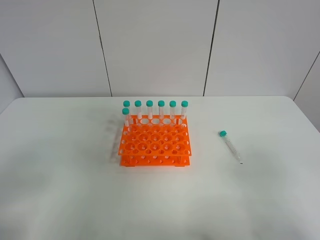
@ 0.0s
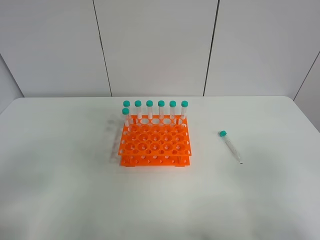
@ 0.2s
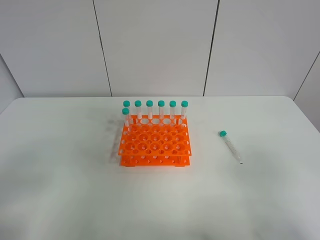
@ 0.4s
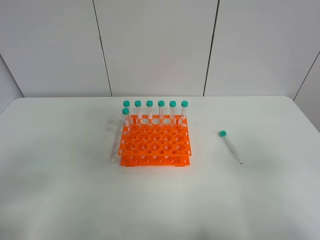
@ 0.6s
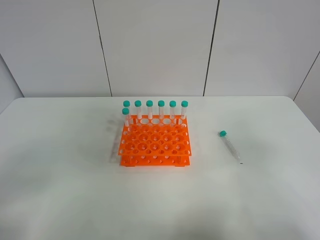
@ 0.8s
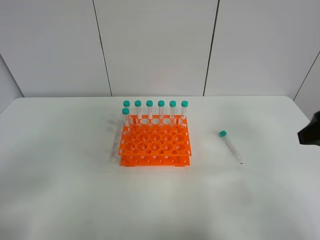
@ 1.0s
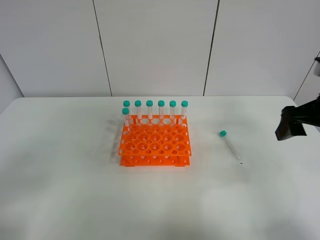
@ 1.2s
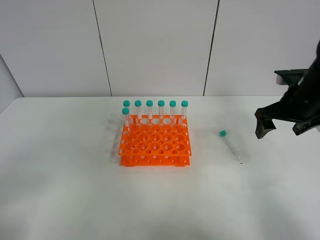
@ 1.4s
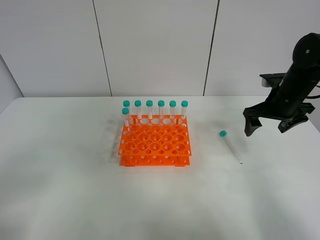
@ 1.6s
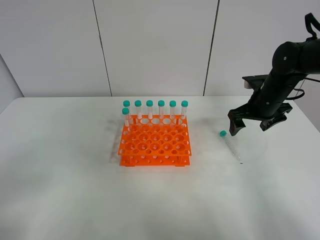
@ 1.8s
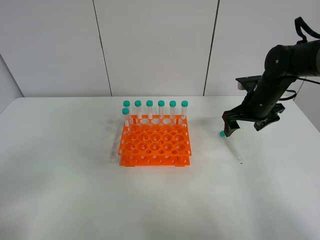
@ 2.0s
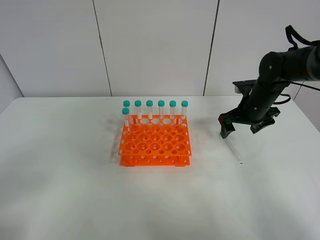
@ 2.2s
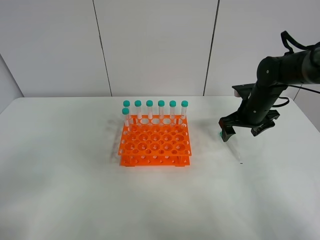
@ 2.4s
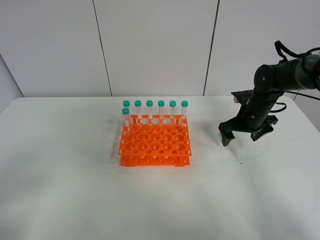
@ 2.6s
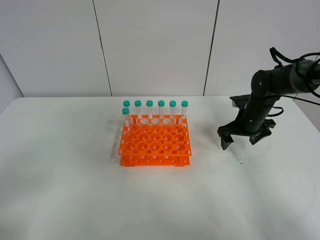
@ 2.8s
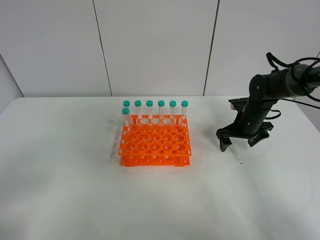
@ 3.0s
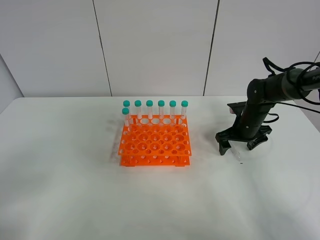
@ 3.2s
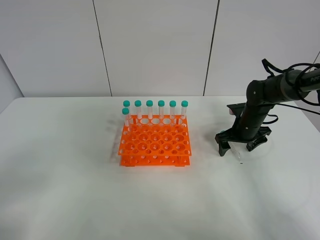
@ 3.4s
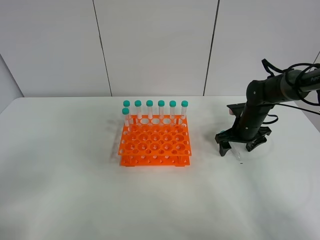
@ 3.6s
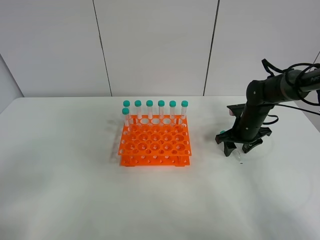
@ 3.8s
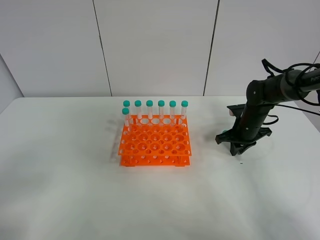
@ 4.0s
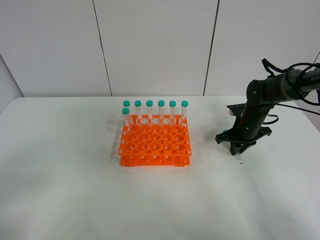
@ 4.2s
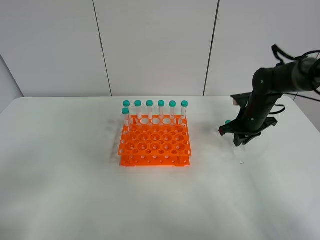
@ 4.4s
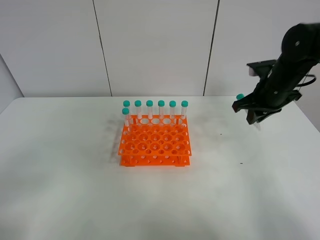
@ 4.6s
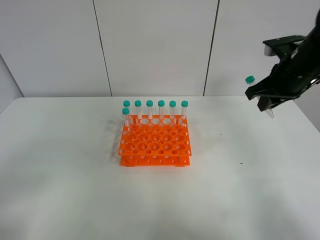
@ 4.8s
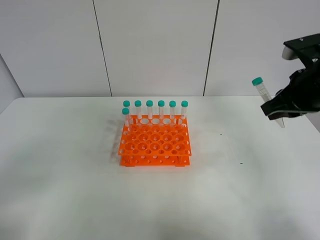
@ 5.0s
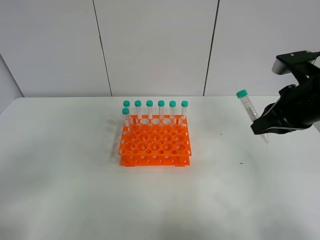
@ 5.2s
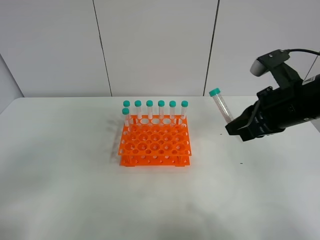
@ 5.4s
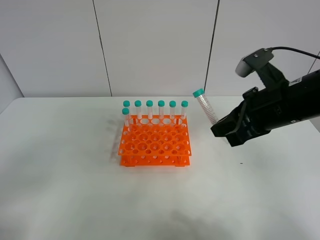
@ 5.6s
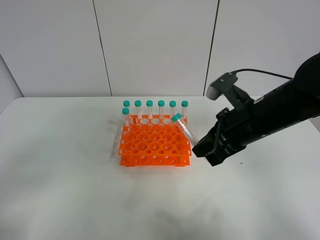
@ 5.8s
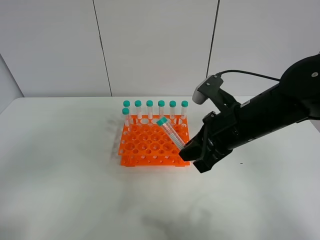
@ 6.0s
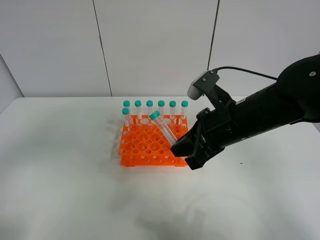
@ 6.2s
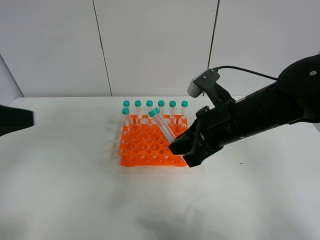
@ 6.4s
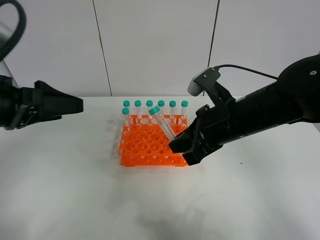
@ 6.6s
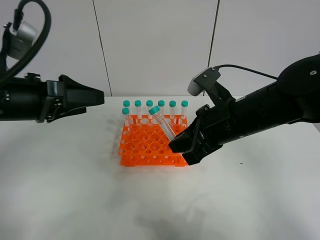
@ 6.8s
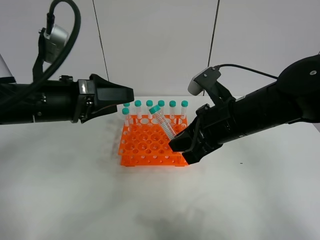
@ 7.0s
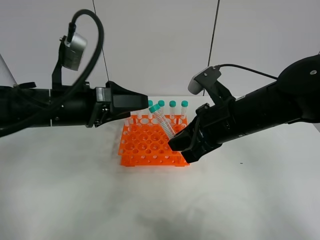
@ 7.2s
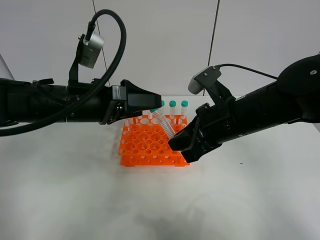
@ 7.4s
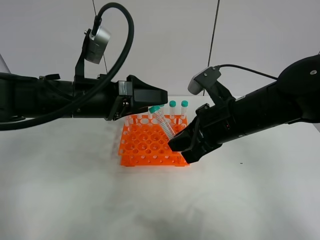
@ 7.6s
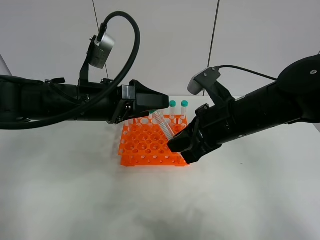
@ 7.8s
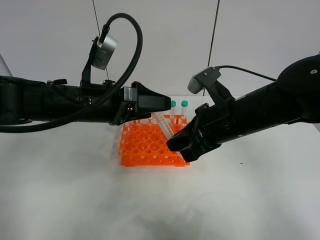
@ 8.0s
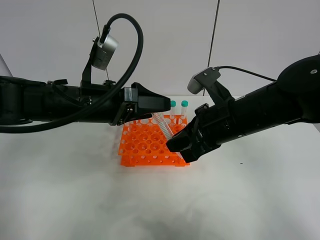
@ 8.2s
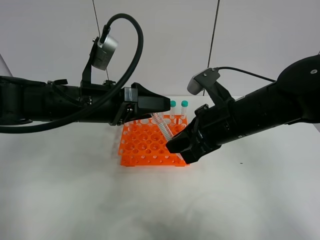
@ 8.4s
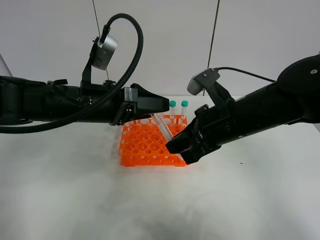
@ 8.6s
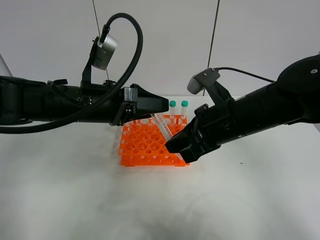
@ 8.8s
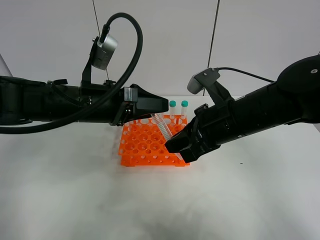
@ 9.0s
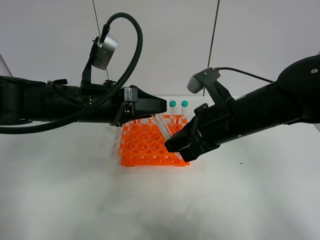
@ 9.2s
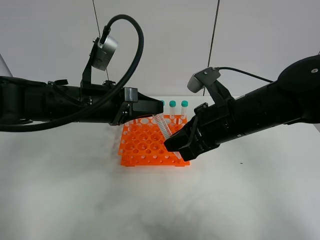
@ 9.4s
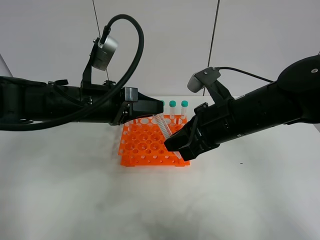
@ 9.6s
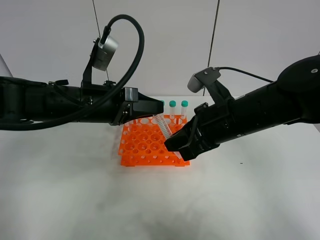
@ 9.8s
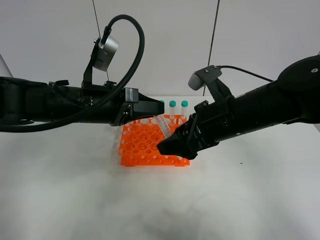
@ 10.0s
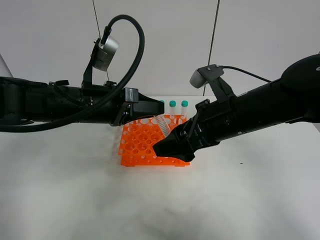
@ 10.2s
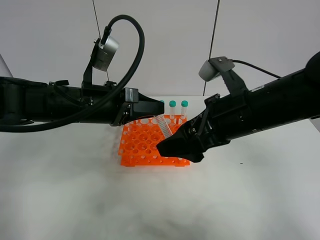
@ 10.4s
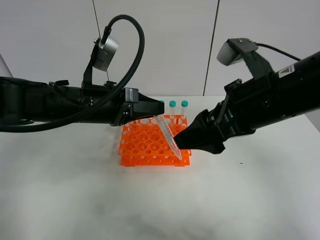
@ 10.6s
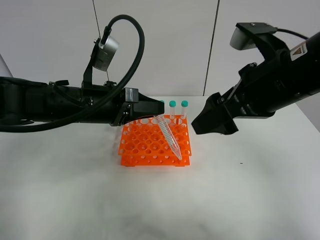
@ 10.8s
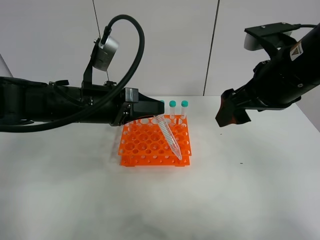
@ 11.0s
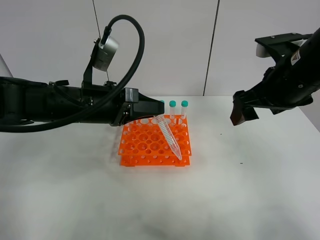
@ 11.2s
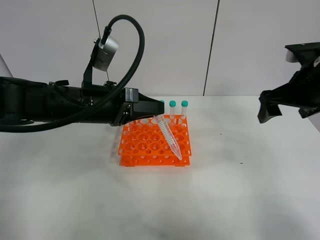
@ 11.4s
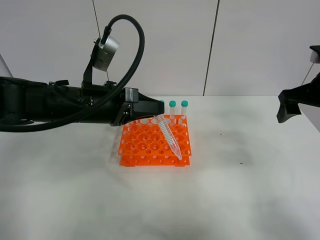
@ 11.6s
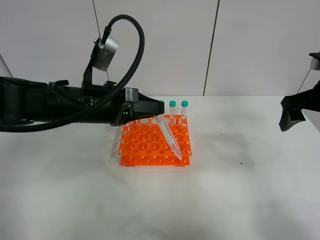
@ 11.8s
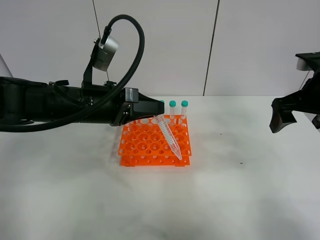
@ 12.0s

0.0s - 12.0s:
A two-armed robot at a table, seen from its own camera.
Task of the whole recording: Put the test tube on the table back onto the test tube rack.
Step, 0.0s - 4.6s: Pick up the test tube with the right gripper.
Step, 4.8s - 10.6s: Move the test tube from the right gripper to the left gripper.
0.0s - 1.6s: The right gripper shifts some 35 cm forward.
1.6s - 3.0s: The right gripper goes some 10 cm downward.
3.0s - 4.4s: The right gripper closes.
4.4s - 6.0s: The right gripper heads backward, to the left and upward, covering approximately 20 cm.
6.0s - 7.6s: The left gripper goes some 30 cm forward and to the right.
7.6s - 9.0s: The left gripper closes its fingers.
9.0s - 10.4s: The left gripper closes its fingers, while the right gripper opens up.
10.4s - 12.0s: The right gripper goes roughly 15 cm to the right and forward.

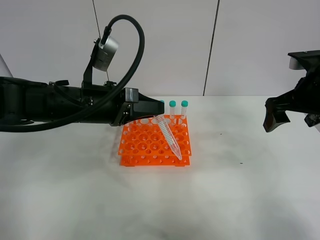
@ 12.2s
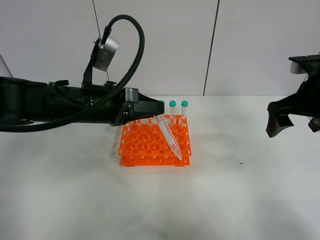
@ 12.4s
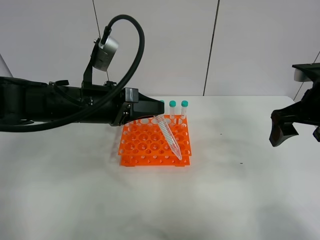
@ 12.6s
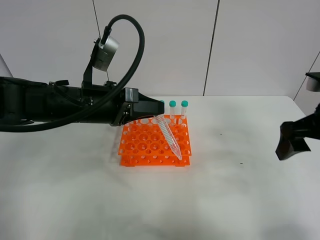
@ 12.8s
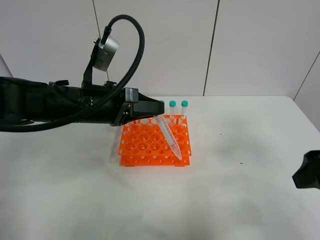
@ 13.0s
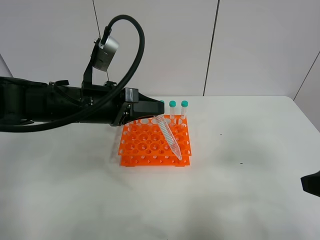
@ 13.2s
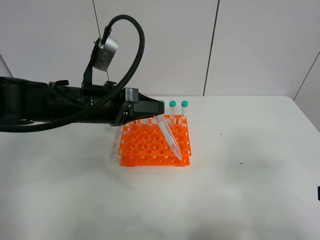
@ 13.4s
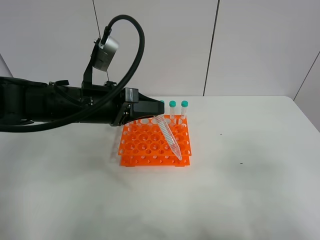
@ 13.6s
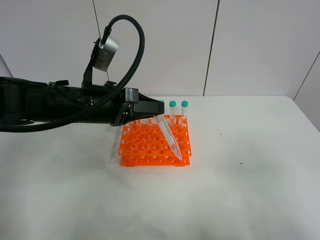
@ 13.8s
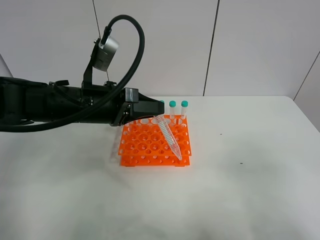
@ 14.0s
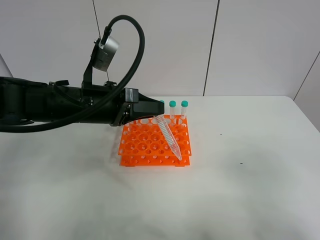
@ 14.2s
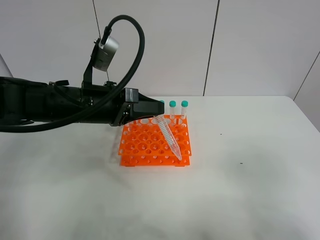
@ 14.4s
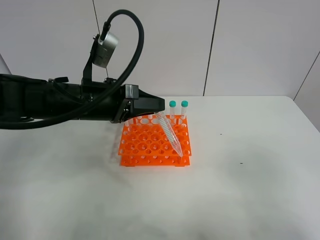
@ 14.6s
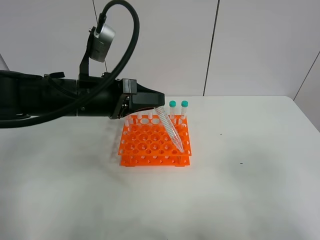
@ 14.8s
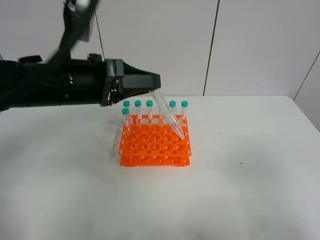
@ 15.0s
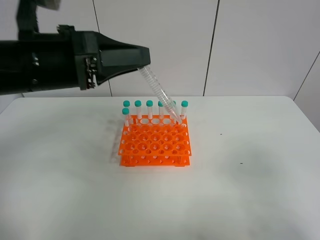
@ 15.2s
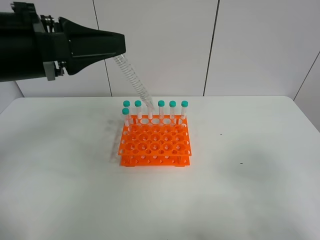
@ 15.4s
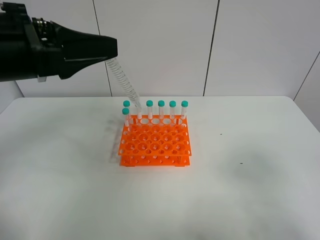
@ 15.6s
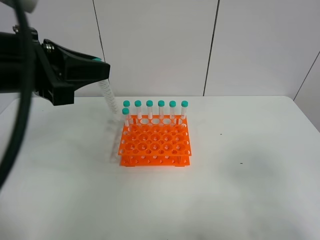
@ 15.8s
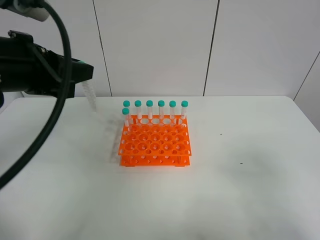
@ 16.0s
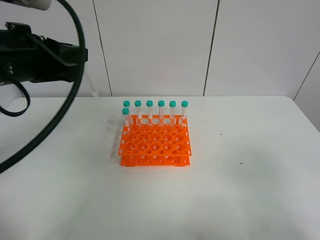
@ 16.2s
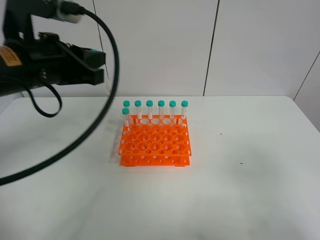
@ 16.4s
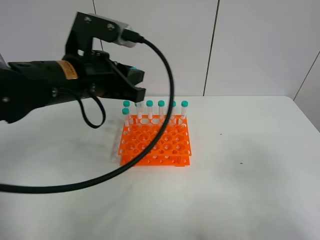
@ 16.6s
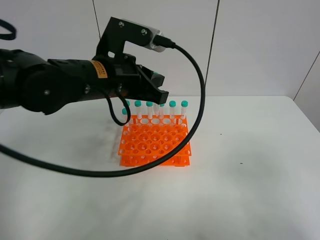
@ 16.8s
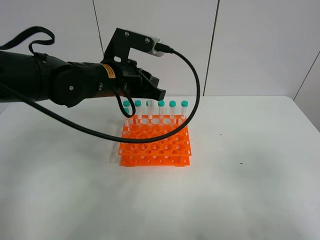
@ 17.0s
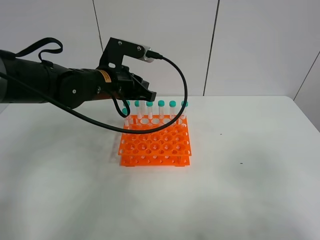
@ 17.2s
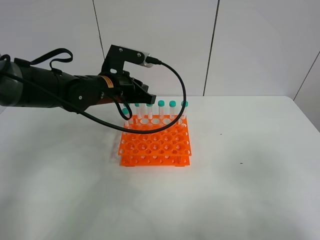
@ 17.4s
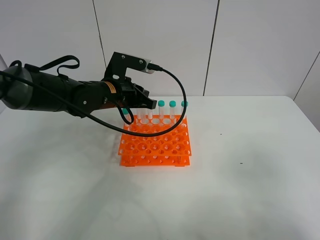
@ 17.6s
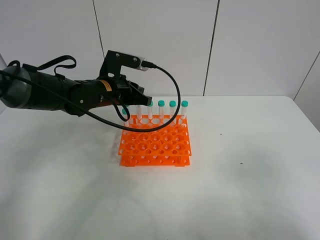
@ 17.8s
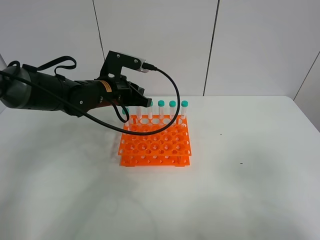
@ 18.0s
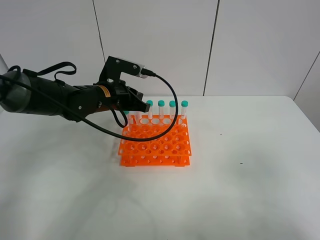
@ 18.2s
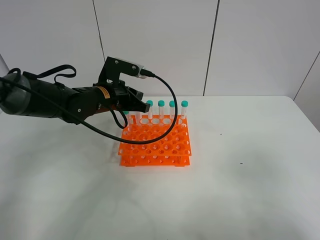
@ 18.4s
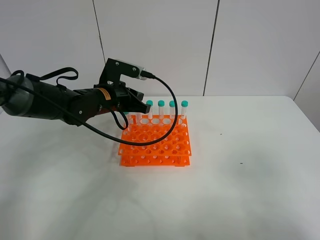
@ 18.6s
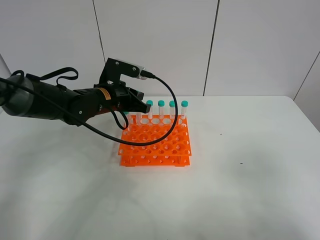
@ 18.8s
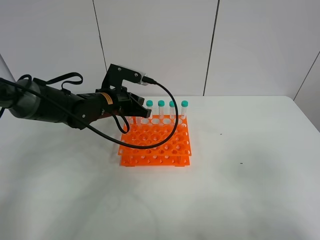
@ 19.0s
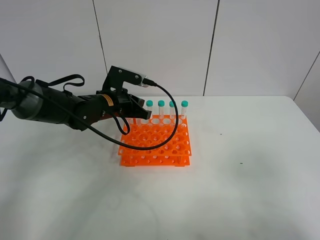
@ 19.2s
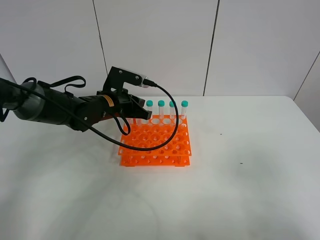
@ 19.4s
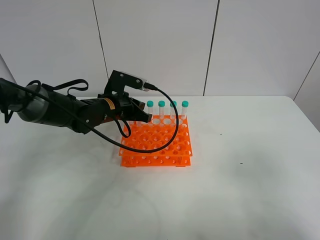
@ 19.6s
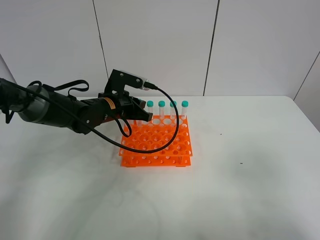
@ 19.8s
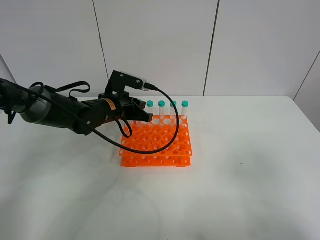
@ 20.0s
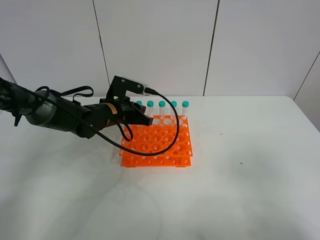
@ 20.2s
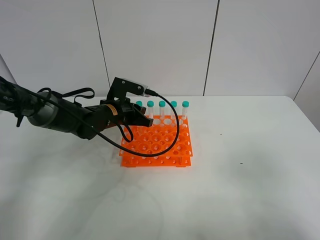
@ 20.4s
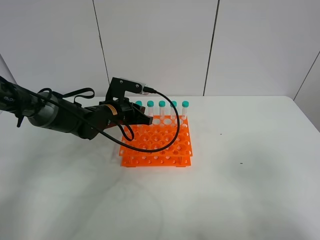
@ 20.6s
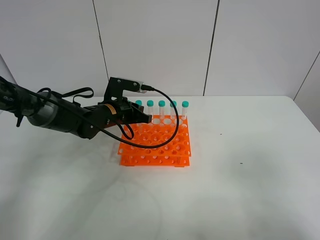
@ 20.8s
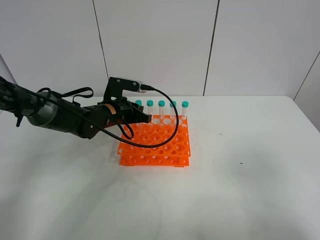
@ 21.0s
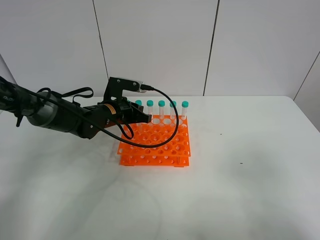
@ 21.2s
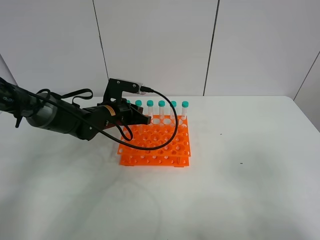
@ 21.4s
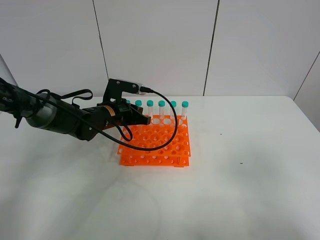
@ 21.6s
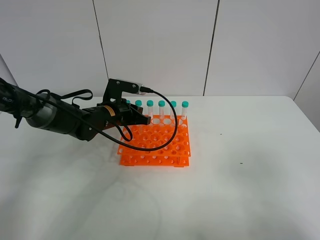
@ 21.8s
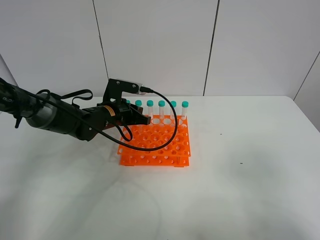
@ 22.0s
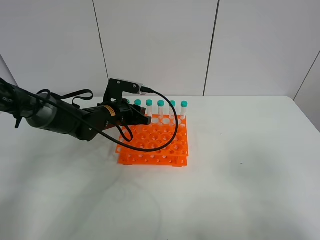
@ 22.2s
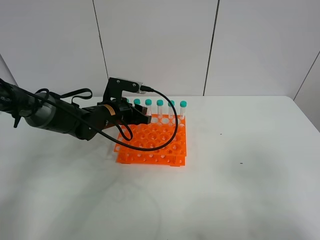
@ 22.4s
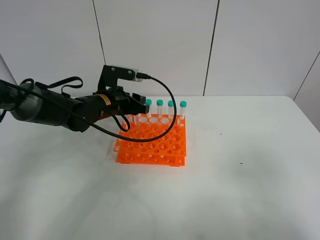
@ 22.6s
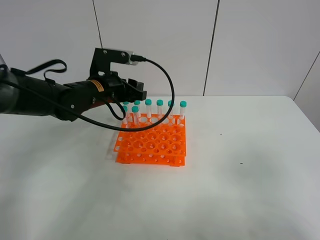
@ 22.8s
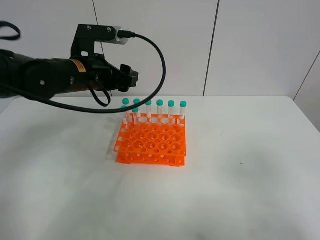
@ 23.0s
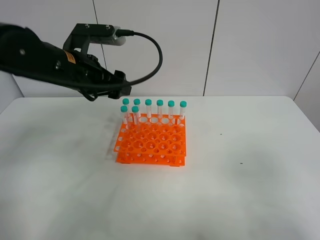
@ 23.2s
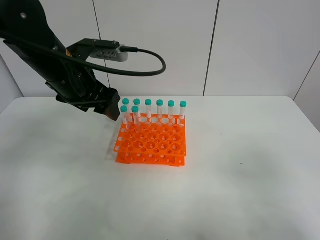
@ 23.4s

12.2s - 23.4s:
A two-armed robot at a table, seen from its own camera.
Task of the whole recording: Put the test tube on the table back onto the test tube rack.
Step, 12.2s - 23.0s: Place the test tube on the test tube rack with the left gripper.
12.2s - 13.8s: The right gripper goes about 25 cm backward.
13.8s - 15.4s: The left gripper heads upward and backward, covering approximately 15 cm.
15.4s - 17.0s: The left gripper heads forward, downward and to the right, covering some 20 cm.
17.0s - 18.6s: The left gripper is displaced downward by some 5 cm.
18.6s - 21.8s: The grippers stay close to where they were, moving slightly.
21.8s - 23.4s: The left gripper shifts about 15 cm upward and backward, and opens.
